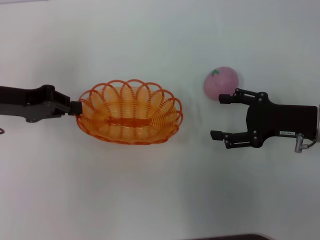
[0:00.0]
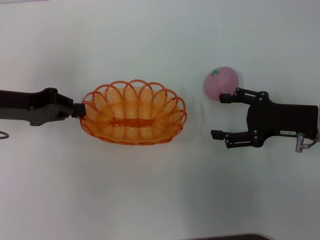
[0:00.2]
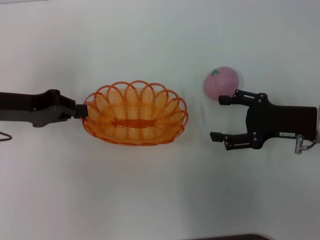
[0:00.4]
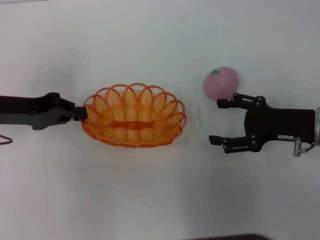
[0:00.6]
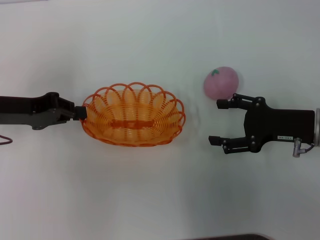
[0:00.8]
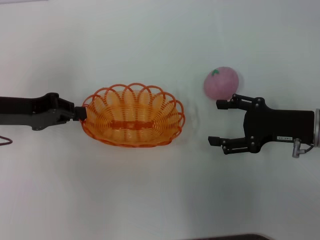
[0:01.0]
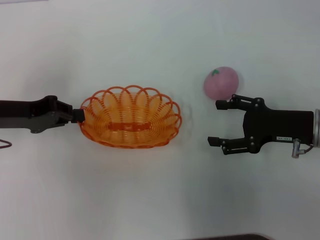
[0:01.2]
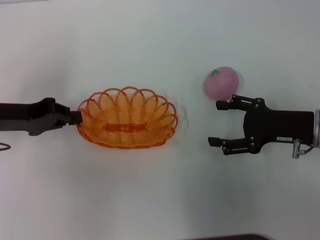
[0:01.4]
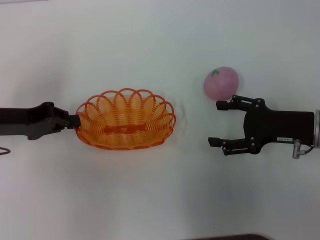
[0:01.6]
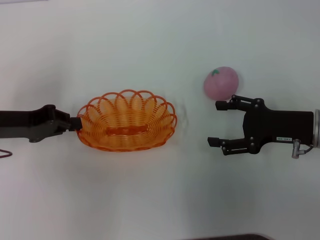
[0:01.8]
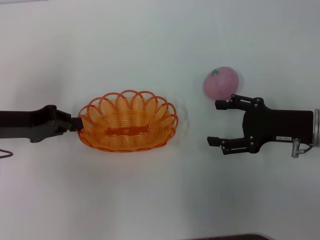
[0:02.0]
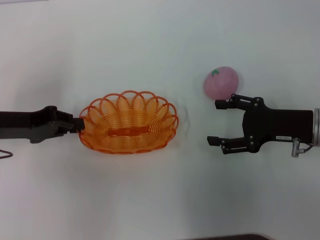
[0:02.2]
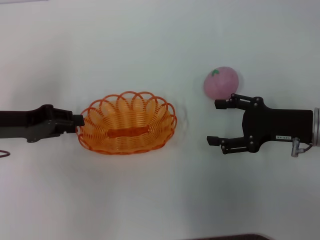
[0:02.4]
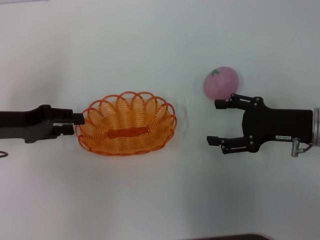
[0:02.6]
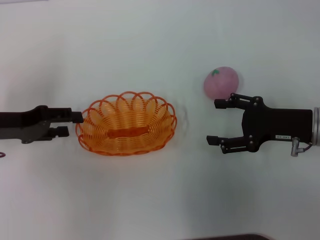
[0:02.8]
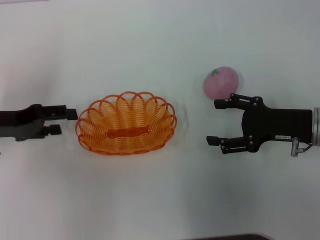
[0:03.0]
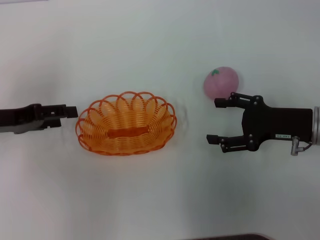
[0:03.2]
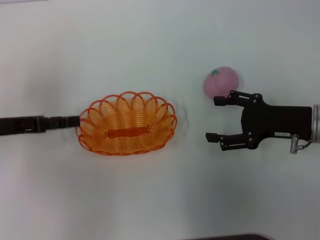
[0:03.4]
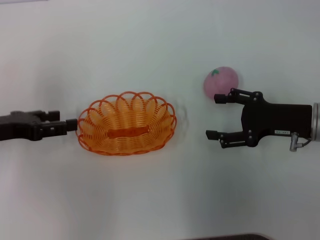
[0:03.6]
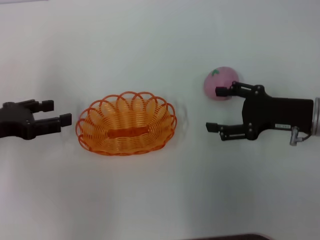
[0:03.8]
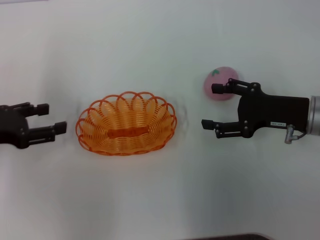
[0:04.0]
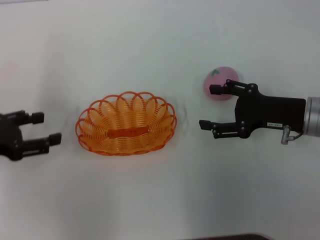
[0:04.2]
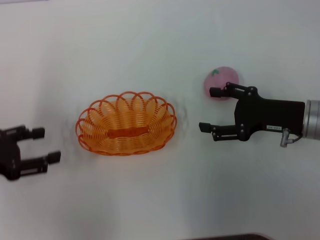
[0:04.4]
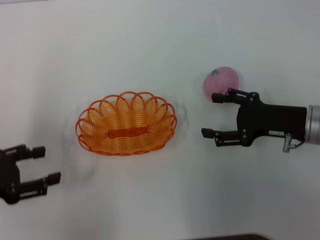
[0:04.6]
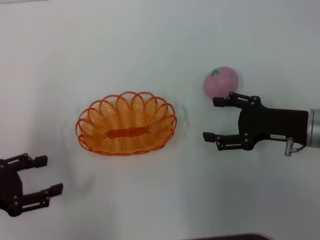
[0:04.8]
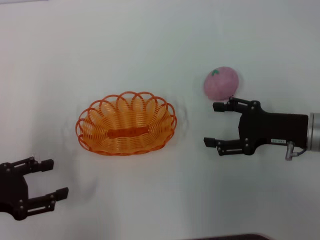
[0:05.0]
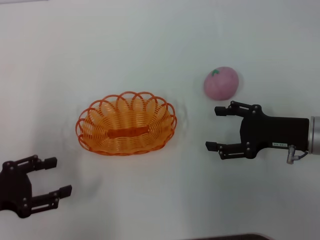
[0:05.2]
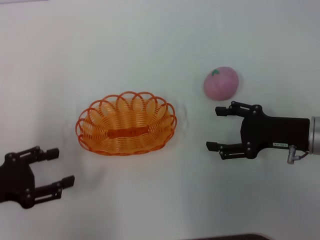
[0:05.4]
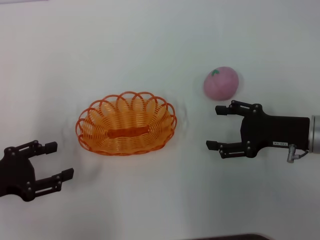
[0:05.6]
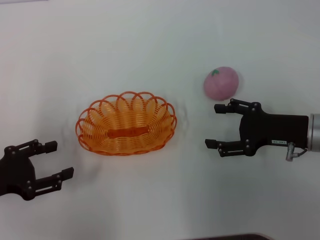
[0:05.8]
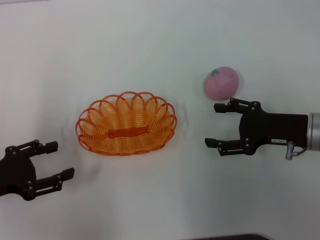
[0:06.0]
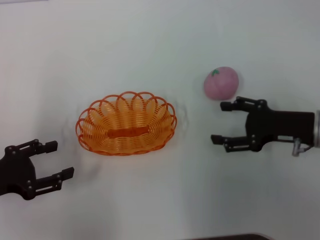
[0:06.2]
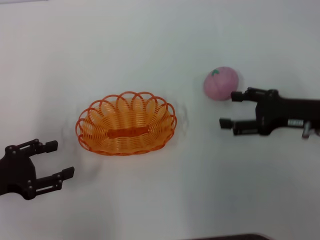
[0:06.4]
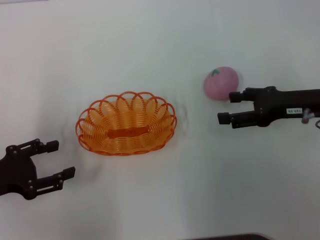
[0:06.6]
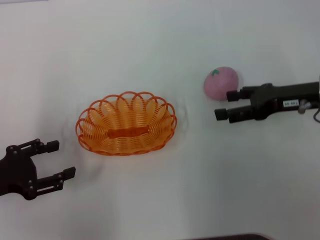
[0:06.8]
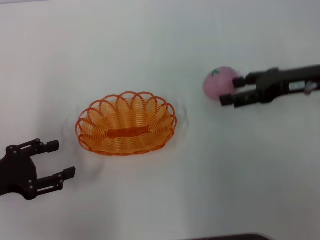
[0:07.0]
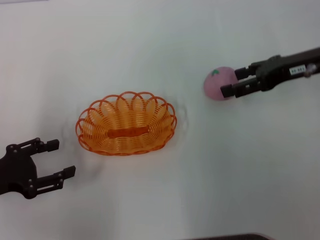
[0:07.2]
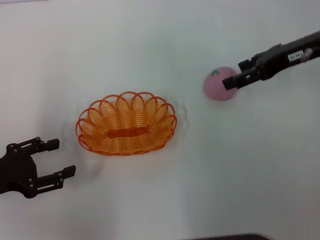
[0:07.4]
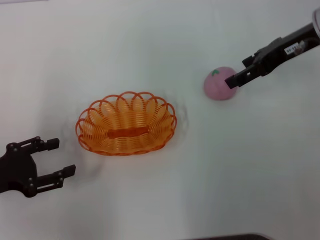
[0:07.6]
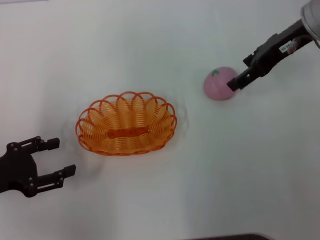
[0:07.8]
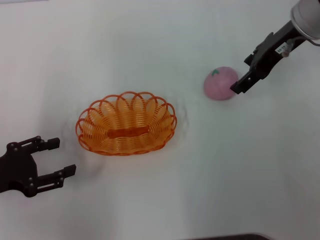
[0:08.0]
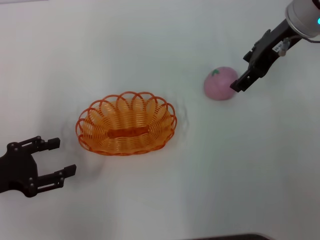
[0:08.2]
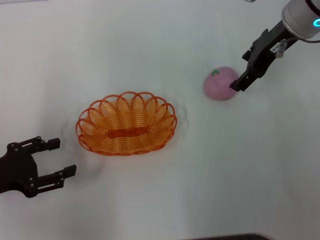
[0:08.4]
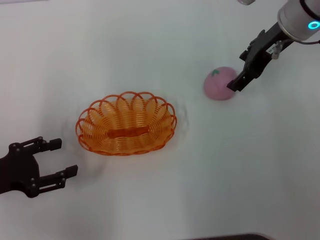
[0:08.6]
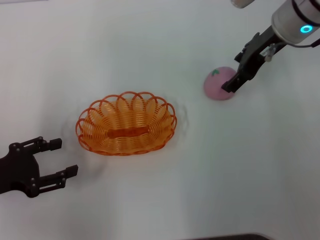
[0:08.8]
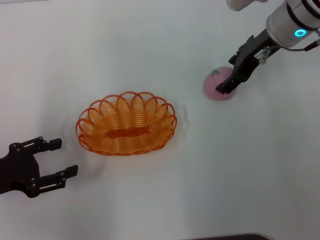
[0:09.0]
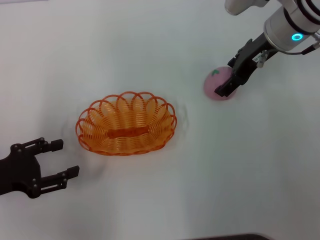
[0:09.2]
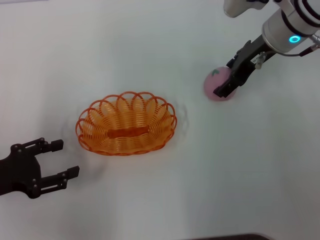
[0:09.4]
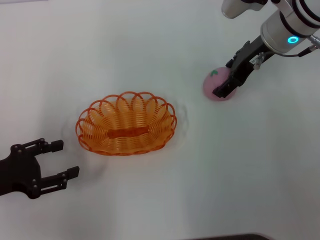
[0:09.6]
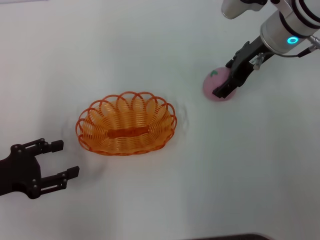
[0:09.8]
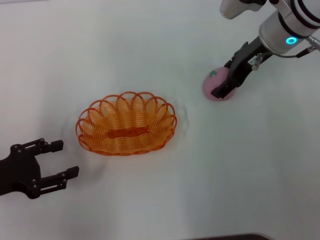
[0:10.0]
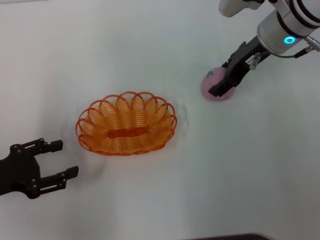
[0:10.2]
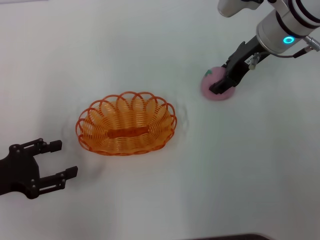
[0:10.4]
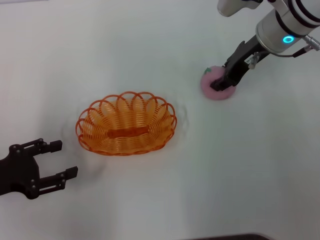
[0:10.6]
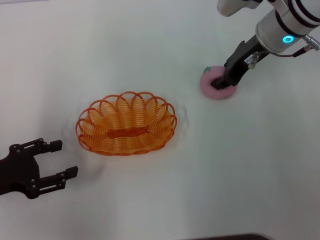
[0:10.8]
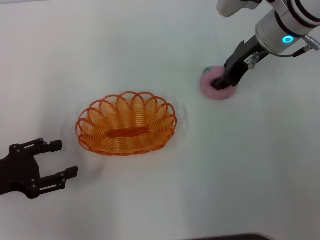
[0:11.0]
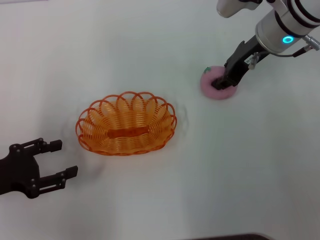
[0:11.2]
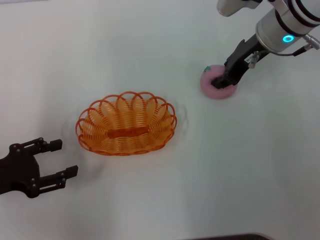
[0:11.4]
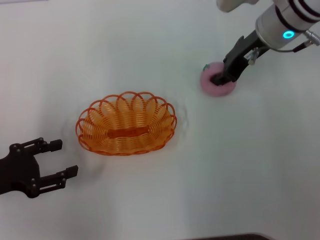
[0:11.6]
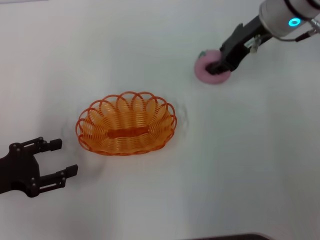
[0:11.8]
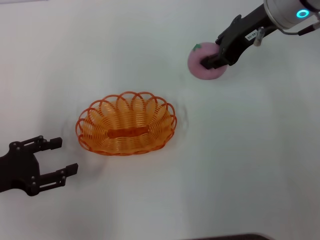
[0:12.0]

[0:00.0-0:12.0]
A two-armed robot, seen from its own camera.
Step, 0.0 to 2.4 s: Put the basket in the middle.
Step, 2.6 to 11.4 s: Grab the peach with your right arm.
0.0 to 1.6 s: There are only small adjustments of the grippers.
1.6 to 3.0 s: The left gripper opens up.
3.0 to 4.4 s: The left gripper goes some 5 cm backward.
4.4 to 6.0 s: The grippers move only a little.
6.0 to 7.6 s: The right gripper shifts approximately 20 cm upward and forward.
7.6 to 9.0 s: The right gripper travels to the left by some 5 cm.
9.0 to 10.4 s: The grippers move only a little.
10.4 to 12.0 s: The right gripper travels upward by roughly 5 cm, and closes its fingers.

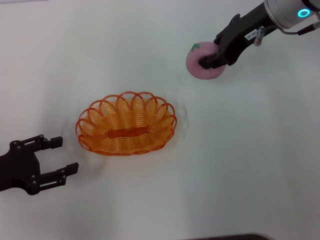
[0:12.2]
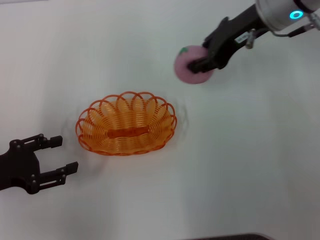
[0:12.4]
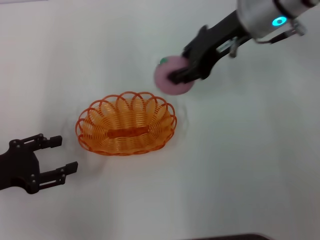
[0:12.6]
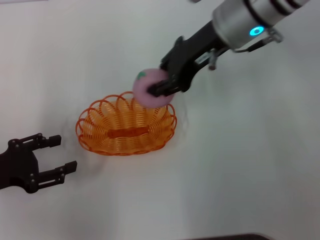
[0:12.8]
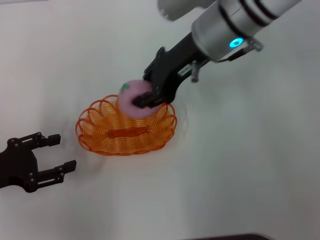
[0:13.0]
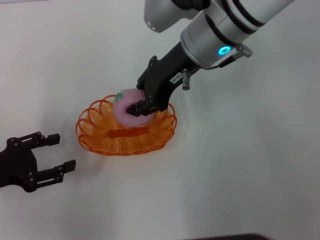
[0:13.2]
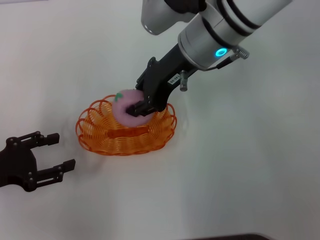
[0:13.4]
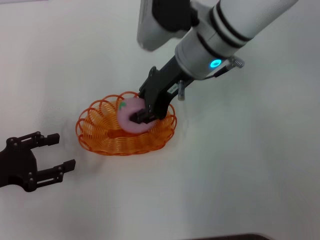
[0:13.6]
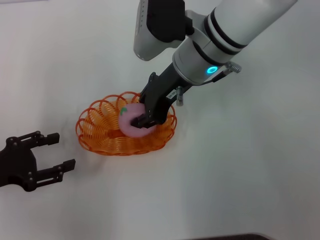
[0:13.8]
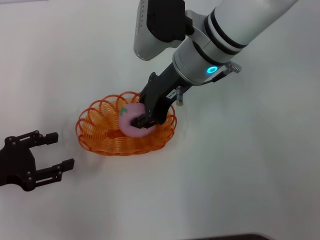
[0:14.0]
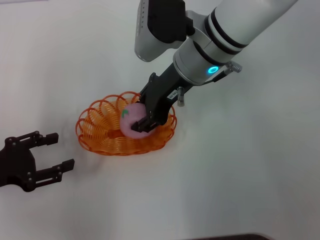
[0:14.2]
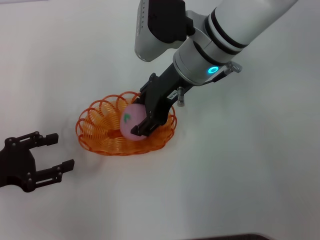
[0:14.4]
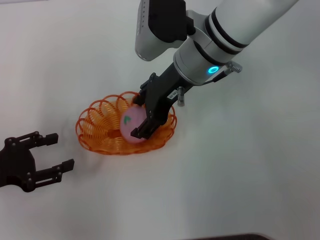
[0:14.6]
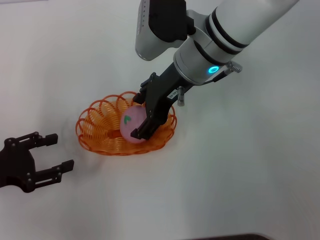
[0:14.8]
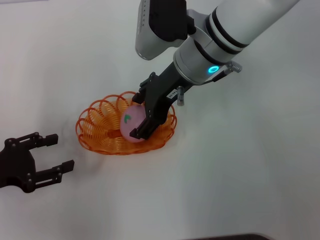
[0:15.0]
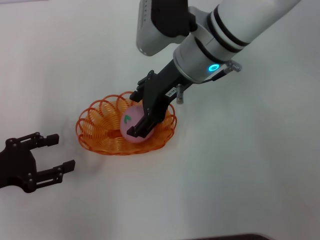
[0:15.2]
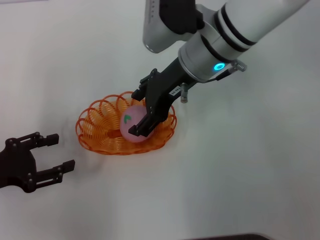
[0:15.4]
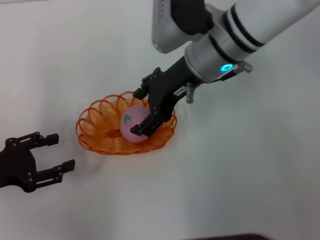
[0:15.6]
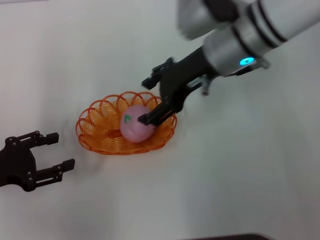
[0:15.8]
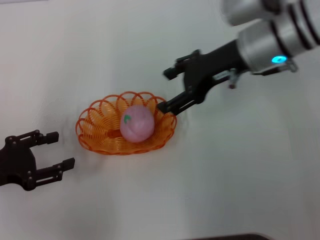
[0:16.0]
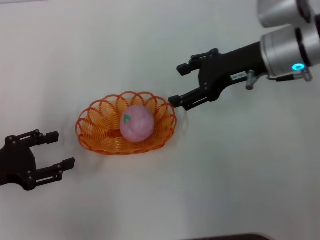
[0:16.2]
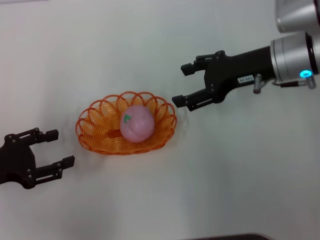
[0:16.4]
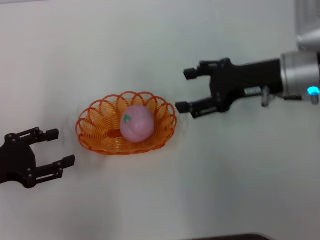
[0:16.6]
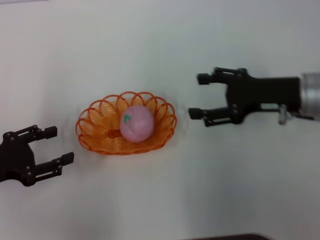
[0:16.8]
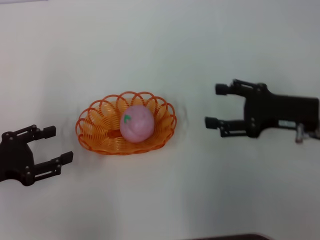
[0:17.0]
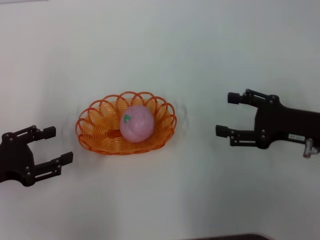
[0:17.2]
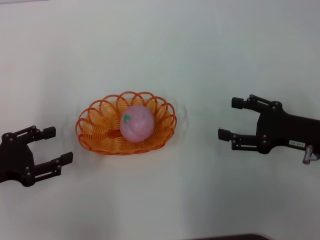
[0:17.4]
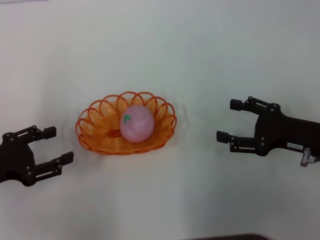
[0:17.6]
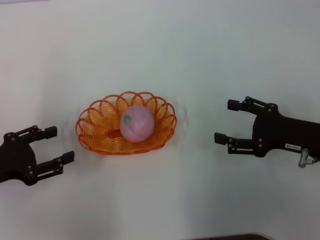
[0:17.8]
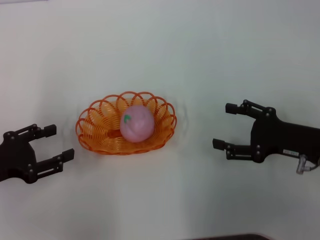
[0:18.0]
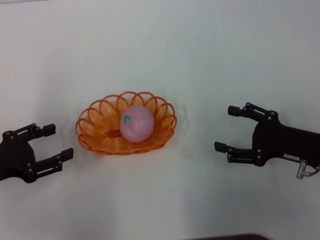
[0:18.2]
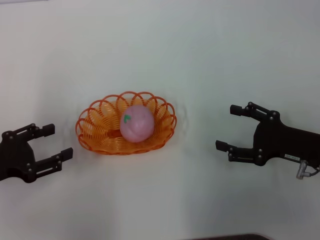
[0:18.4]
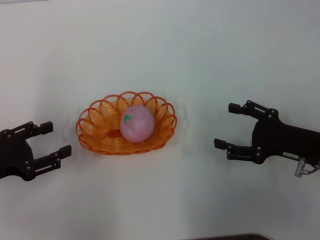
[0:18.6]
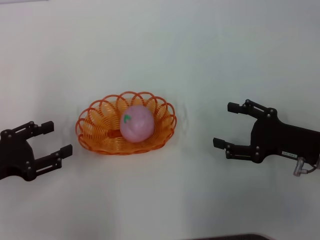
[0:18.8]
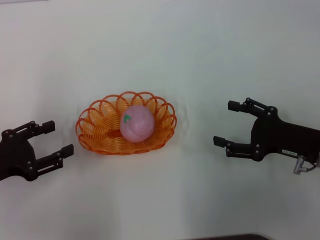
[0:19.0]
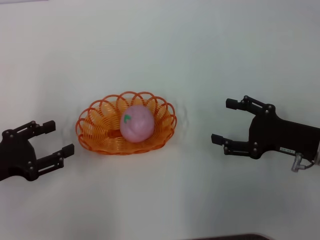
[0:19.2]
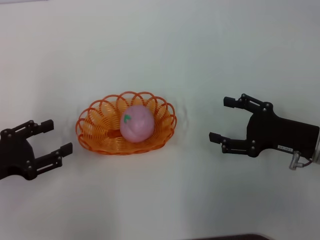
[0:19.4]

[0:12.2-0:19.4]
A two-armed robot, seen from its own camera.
Step, 12.2 to 15.0 s: Put the peach into the basket.
12.2 to 13.6 s: The right gripper is displaced to the left by about 10 cm.
13.6 to 15.0 s: The right gripper opens.
15.0 to 16.6 s: The right gripper shifts approximately 15 cm to the right.
16.6 to 18.0 s: The right gripper goes approximately 15 cm backward, downward and to the right.
18.0 to 19.4 s: Both grippers stay put.

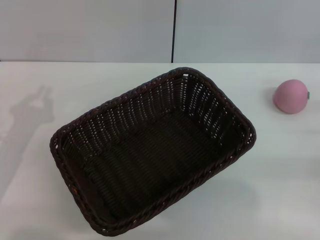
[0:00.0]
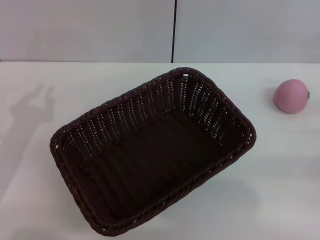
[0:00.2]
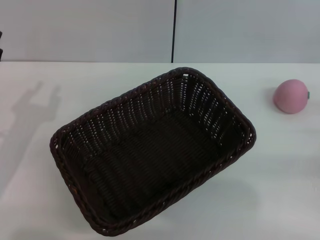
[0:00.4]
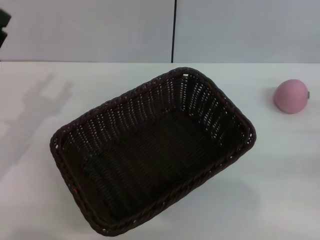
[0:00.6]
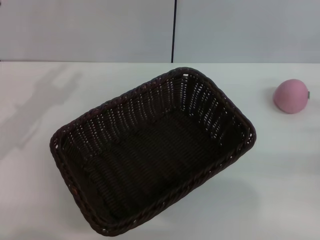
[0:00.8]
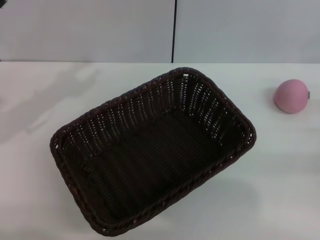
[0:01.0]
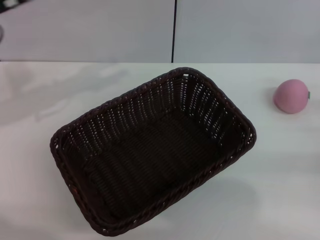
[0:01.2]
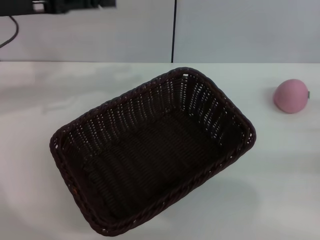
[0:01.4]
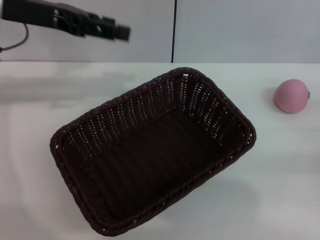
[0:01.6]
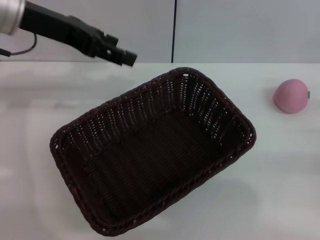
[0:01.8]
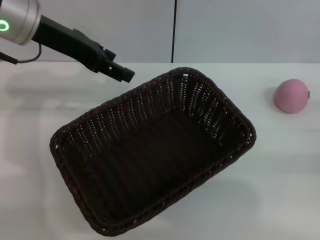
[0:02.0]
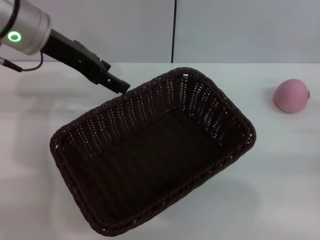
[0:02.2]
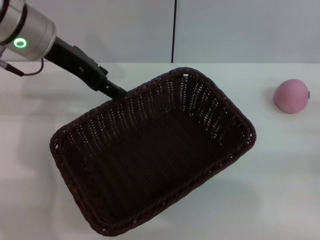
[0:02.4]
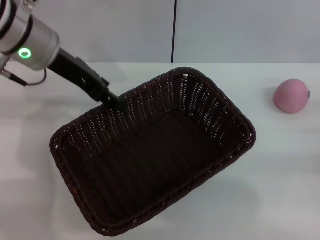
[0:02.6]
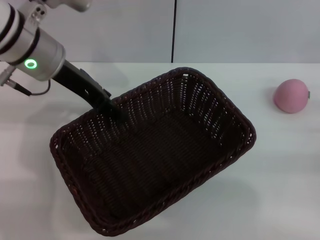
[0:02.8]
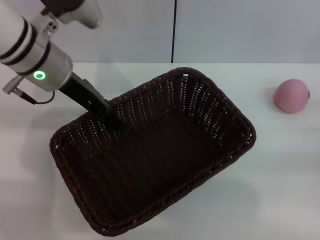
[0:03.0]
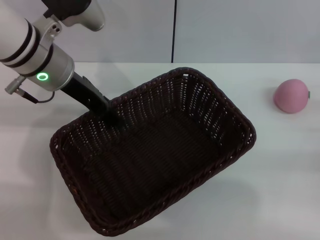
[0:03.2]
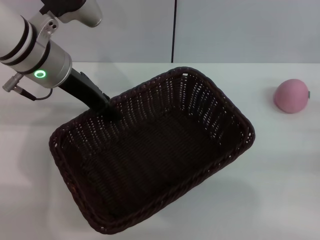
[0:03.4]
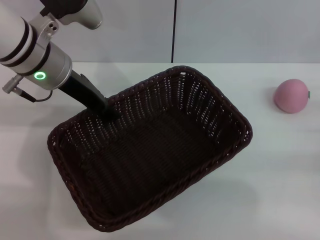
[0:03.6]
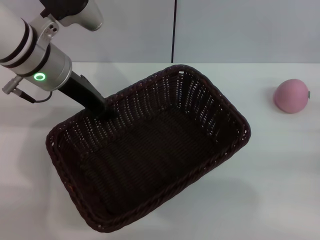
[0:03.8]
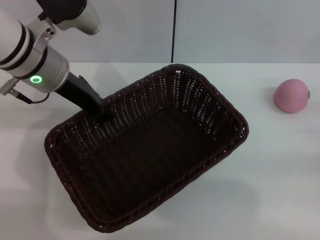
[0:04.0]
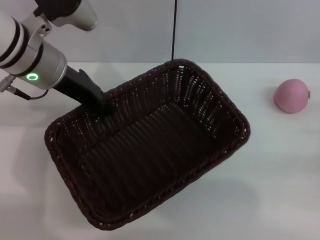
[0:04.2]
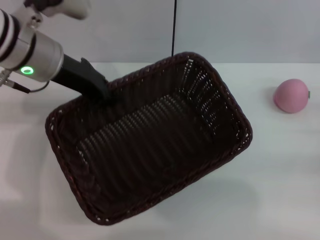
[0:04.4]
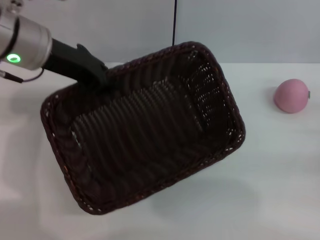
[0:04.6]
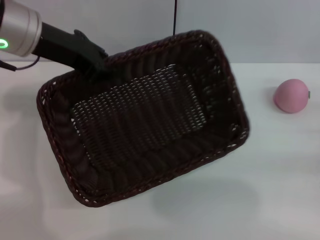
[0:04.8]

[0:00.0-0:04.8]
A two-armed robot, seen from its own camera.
Step, 0.0 to 4.2 s: Pick up the dark basket with the left gripper.
0.0 to 1.6 s: The left gripper shifts roughly 25 cm upward and forward, and closes and opens again.
1.6 to 3.2 s: The left gripper goes some 10 cm to the right and downward.
3.2 to 4.8 s: The left gripper goes some 5 cm upward, and closes.
